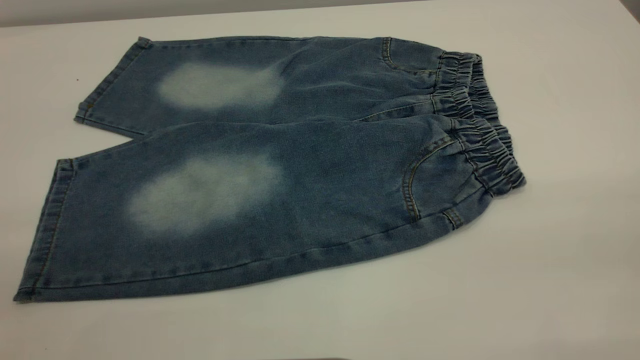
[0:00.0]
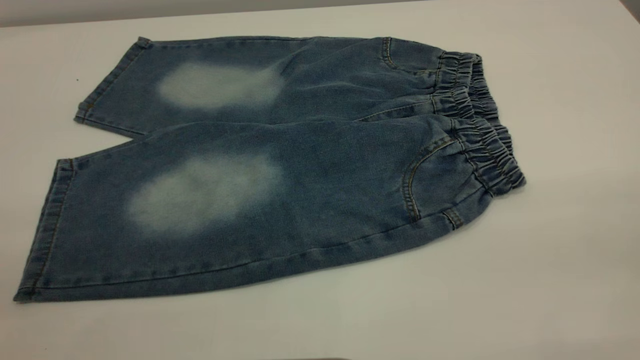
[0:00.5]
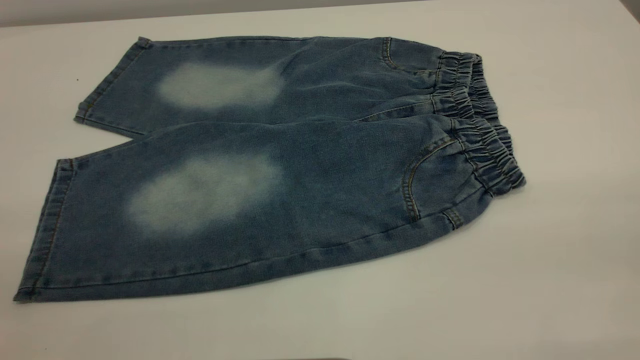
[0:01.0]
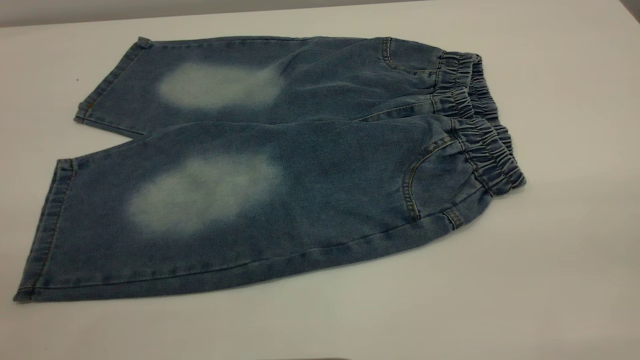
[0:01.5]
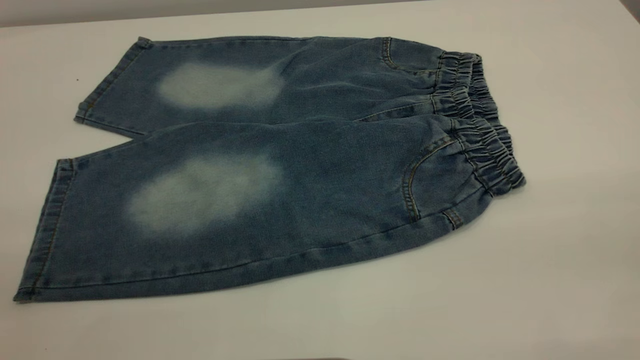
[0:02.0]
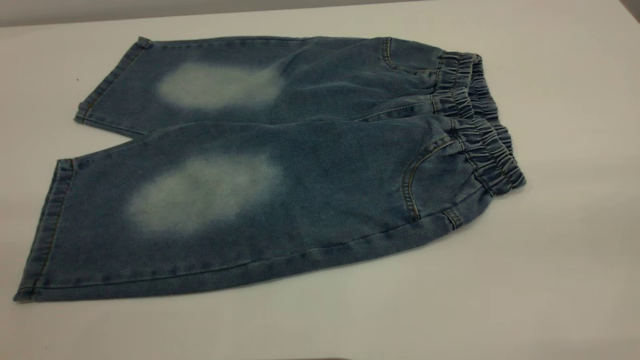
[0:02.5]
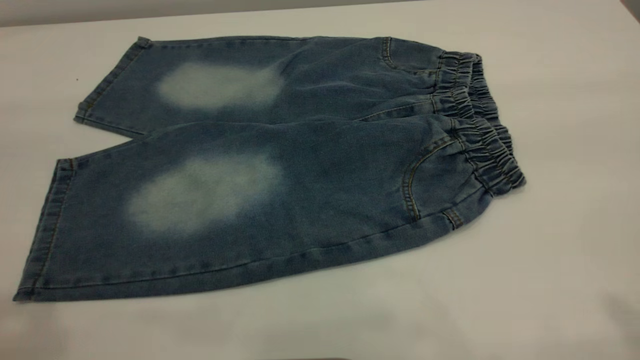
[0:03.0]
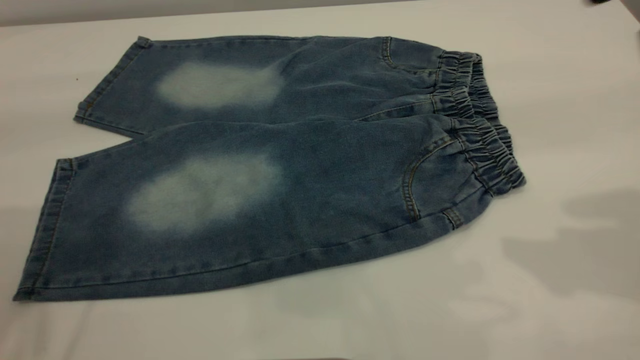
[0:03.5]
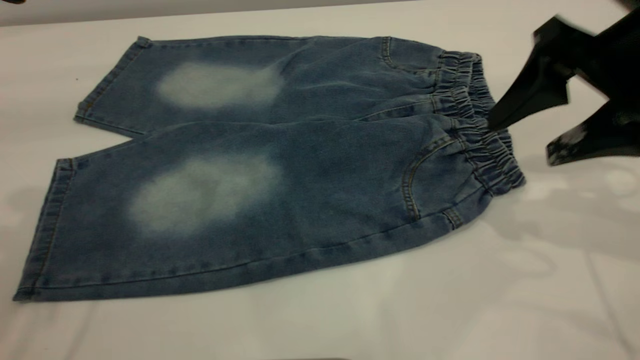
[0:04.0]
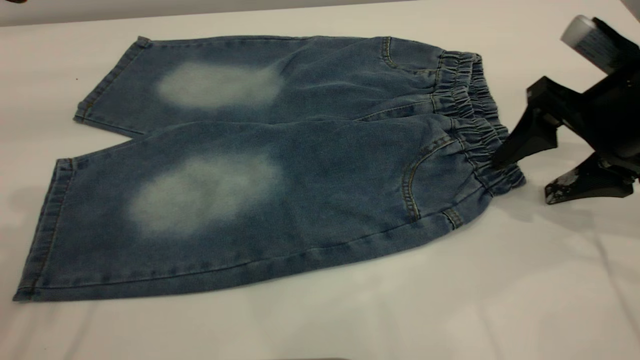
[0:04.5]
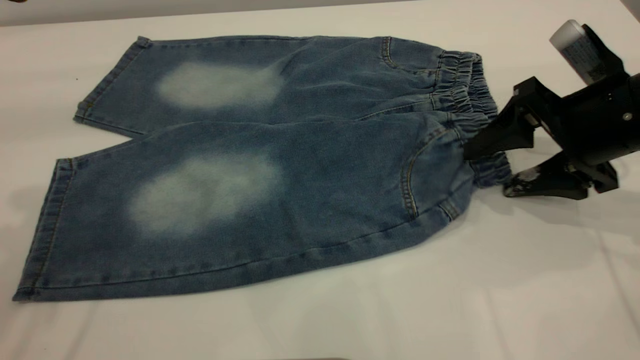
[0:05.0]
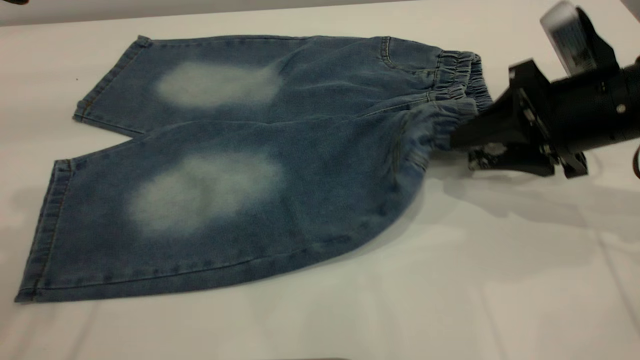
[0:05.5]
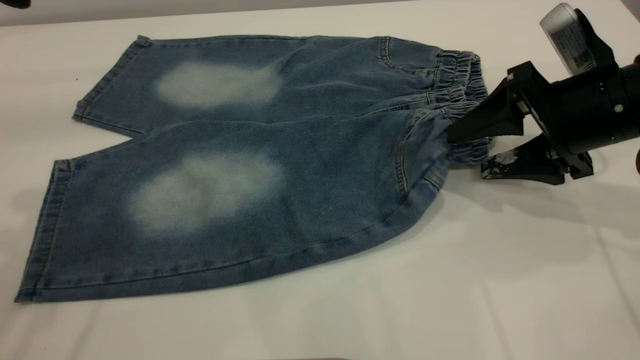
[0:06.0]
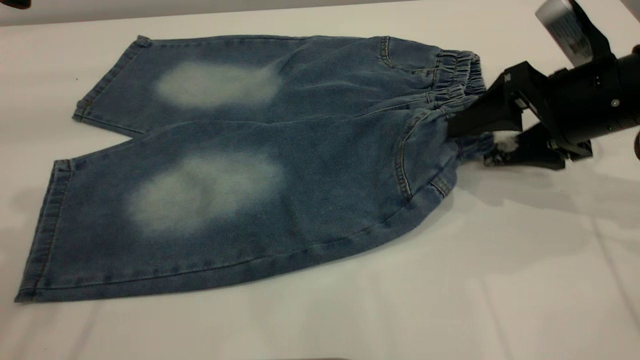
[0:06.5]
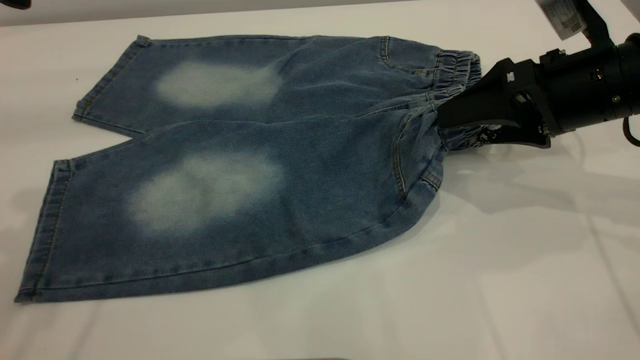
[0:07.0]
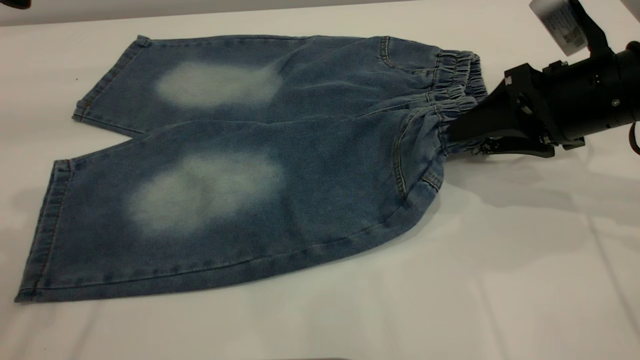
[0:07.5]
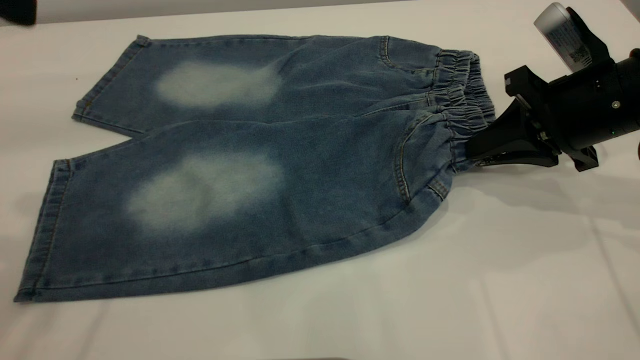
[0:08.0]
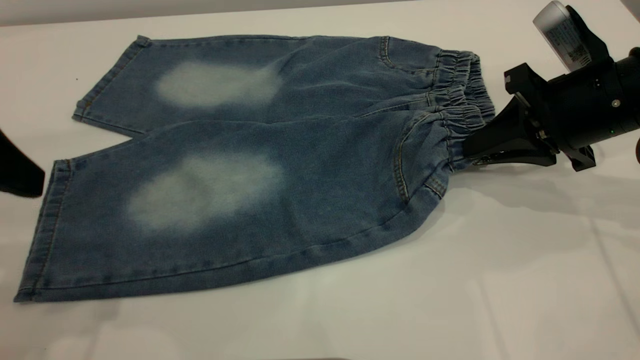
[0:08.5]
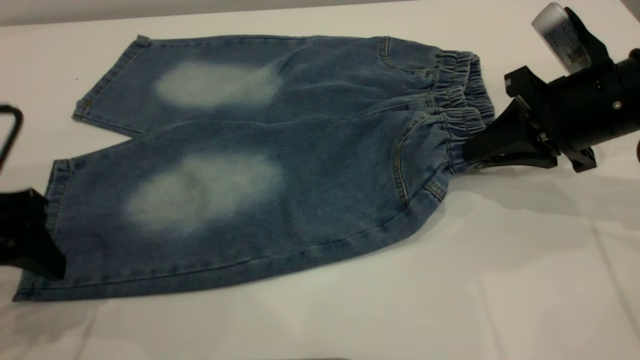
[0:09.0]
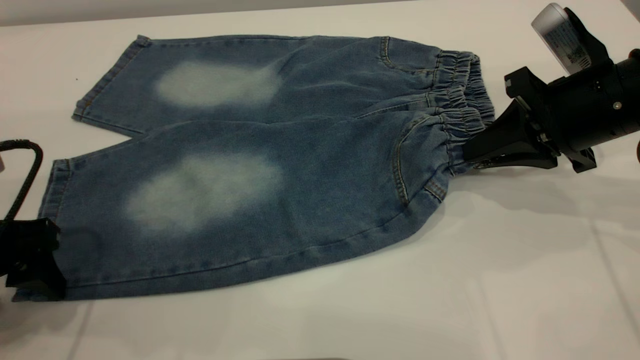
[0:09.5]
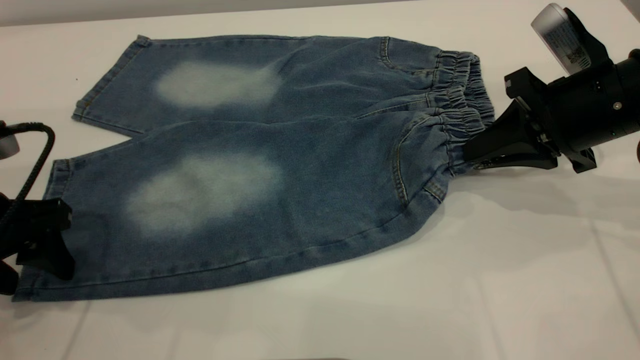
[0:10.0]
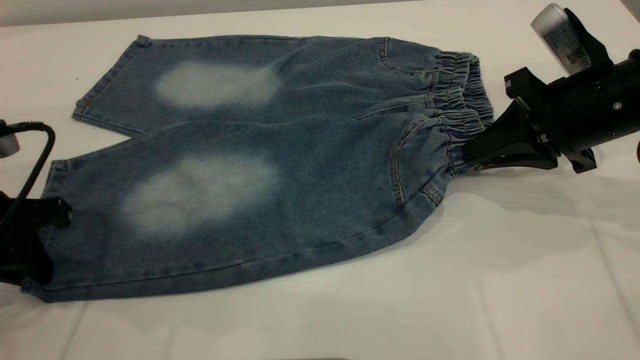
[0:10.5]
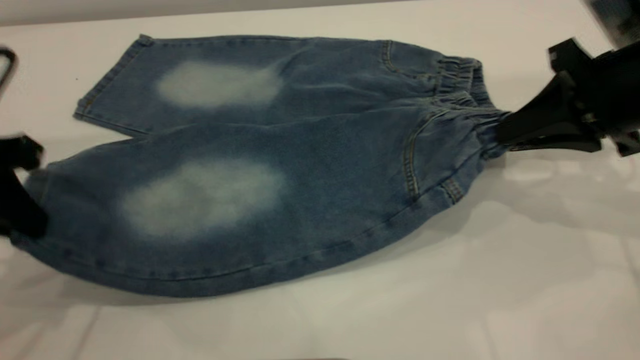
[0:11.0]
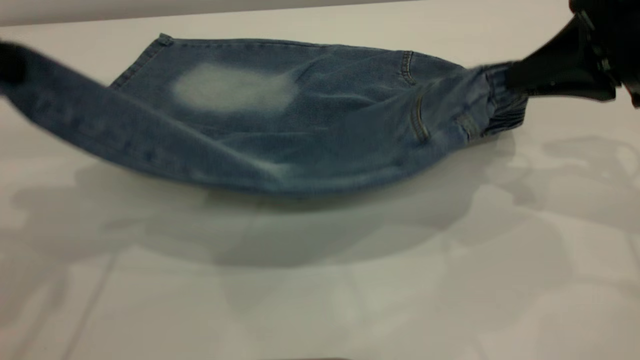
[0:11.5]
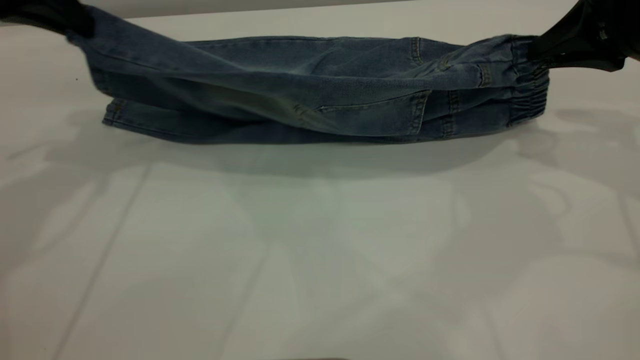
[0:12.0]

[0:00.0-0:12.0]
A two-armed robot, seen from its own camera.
0:00.0 to 0:02.0: Both grippers stay about where they are.
0:02.0 to 0:04.0: The right gripper is displaced forward and downward by roughly 30 cm.
0:04.0 to 0:06.0: The right gripper travels downward by roughly 10 cm, and closes, then opens again.
0:06.0 to 0:08.0: The right gripper closes.
0:08.0 to 0:10.0: The left gripper is displaced downward by about 20 cm.
0:10.0 to 0:12.0: The right gripper heads upward, covering about 5 cm. The left gripper is displaced forward and upward by roughly 20 cm, and closes up.

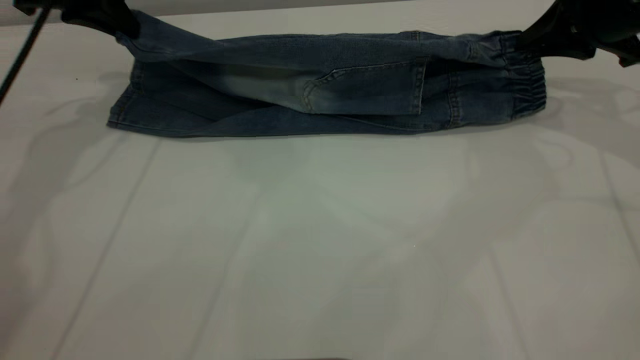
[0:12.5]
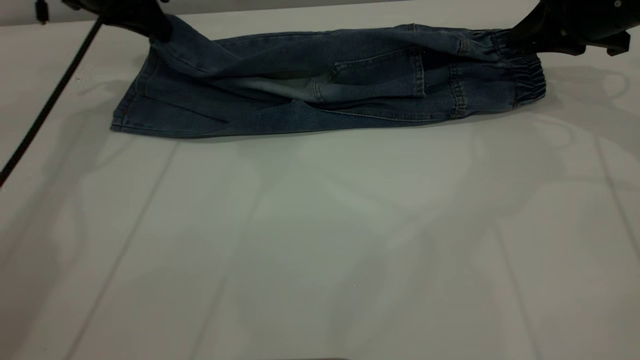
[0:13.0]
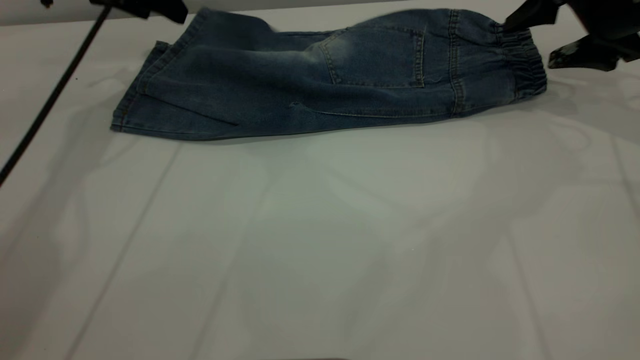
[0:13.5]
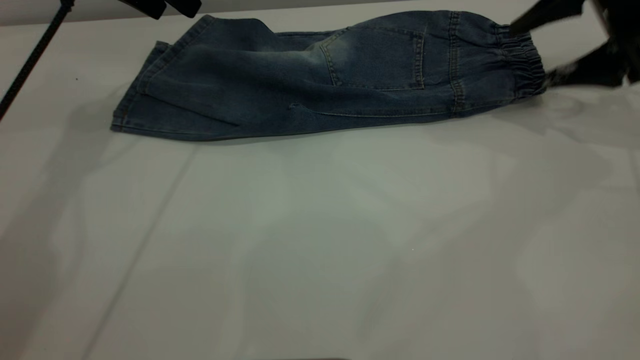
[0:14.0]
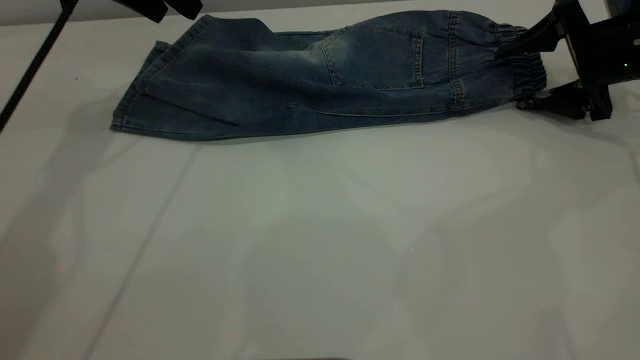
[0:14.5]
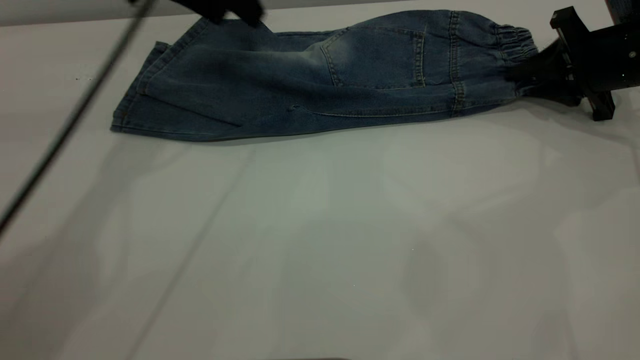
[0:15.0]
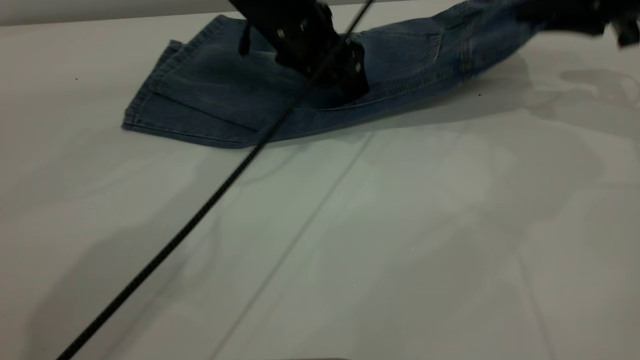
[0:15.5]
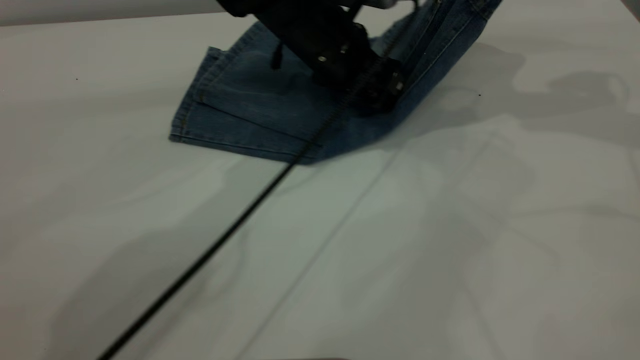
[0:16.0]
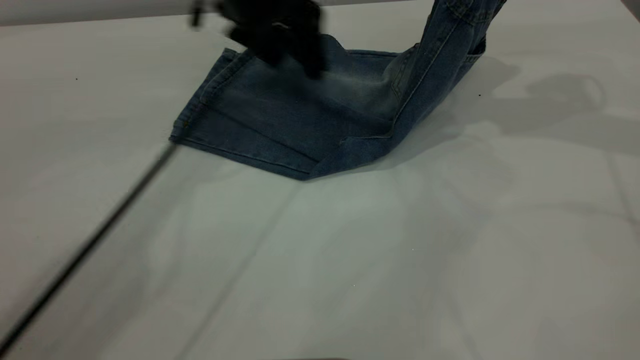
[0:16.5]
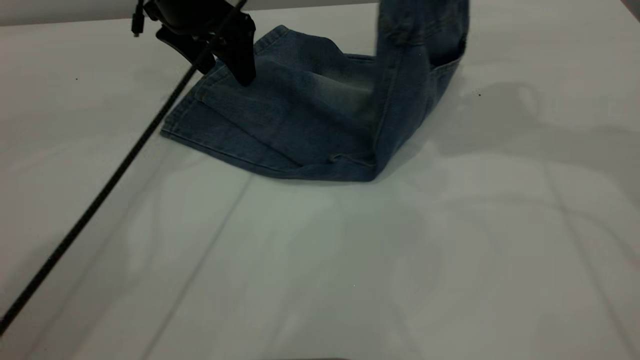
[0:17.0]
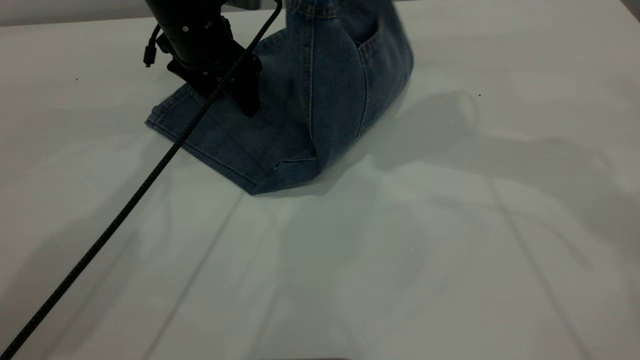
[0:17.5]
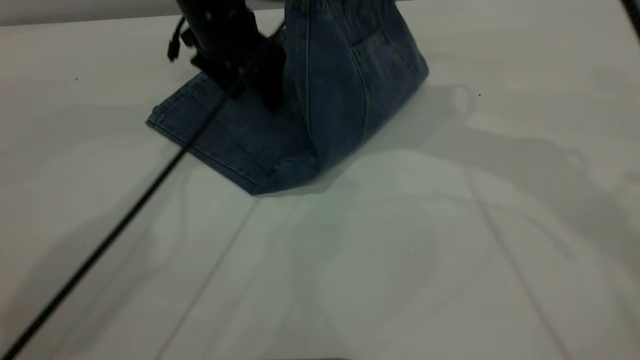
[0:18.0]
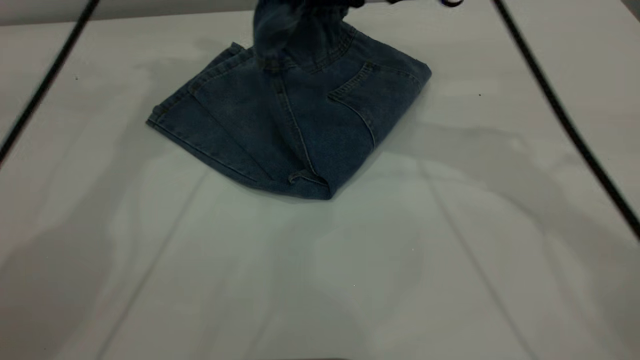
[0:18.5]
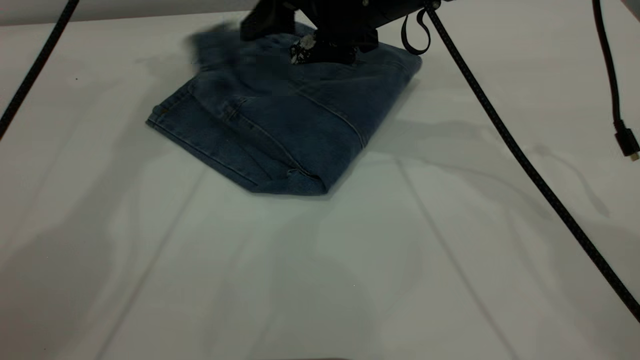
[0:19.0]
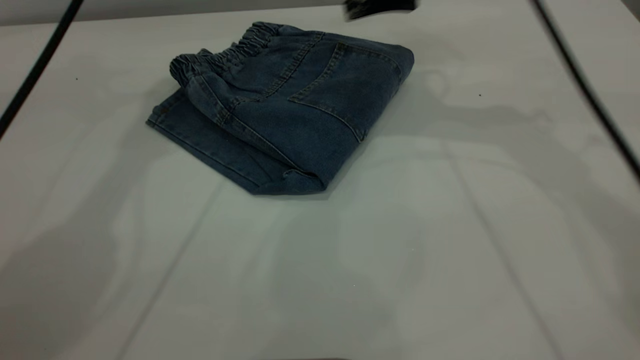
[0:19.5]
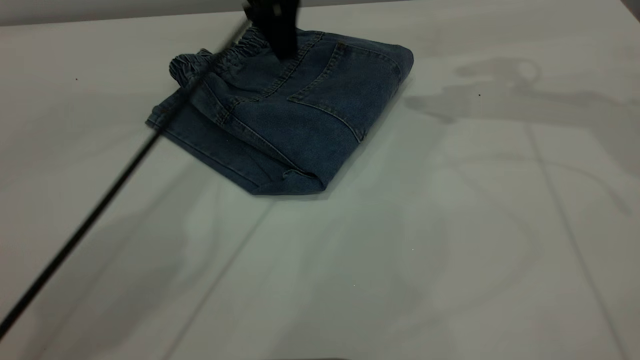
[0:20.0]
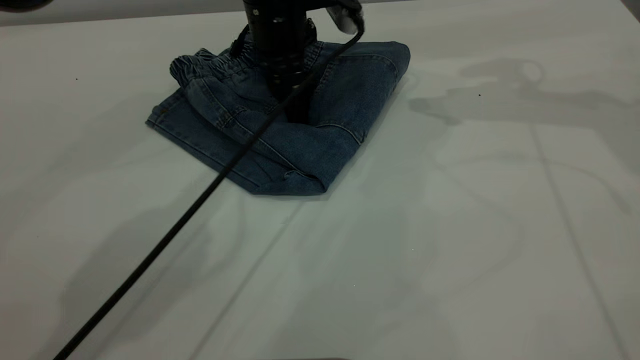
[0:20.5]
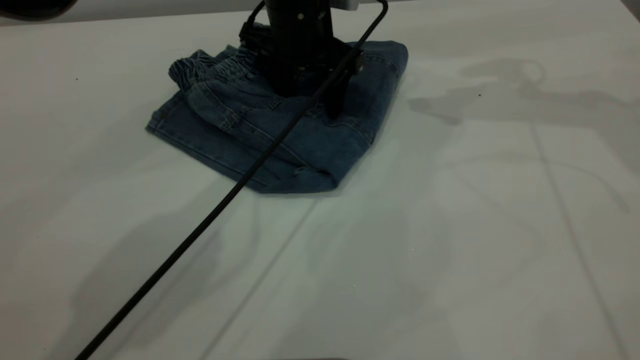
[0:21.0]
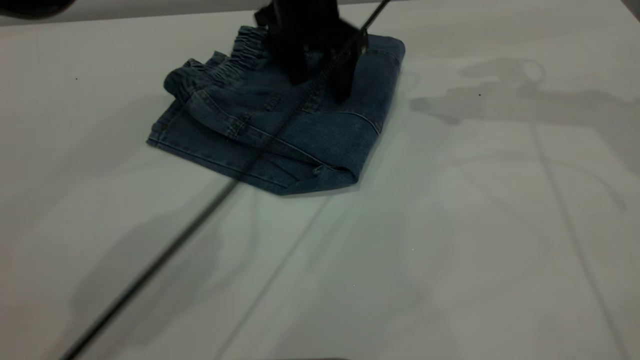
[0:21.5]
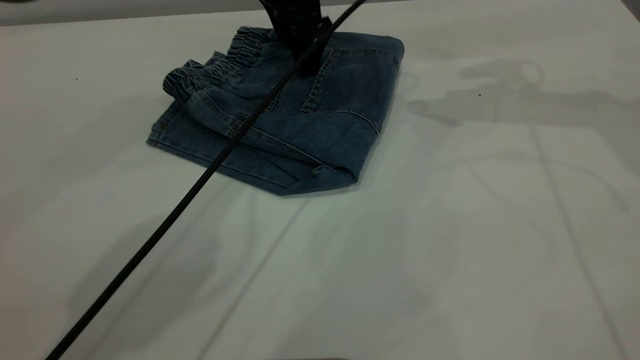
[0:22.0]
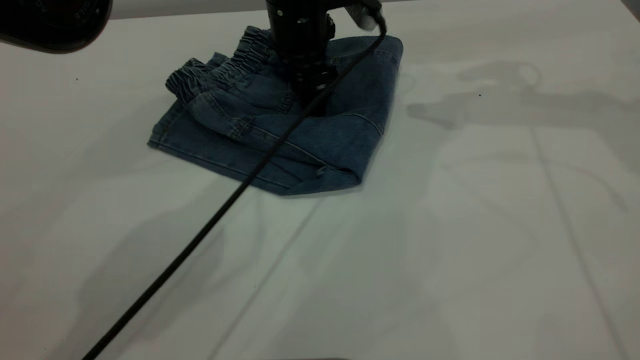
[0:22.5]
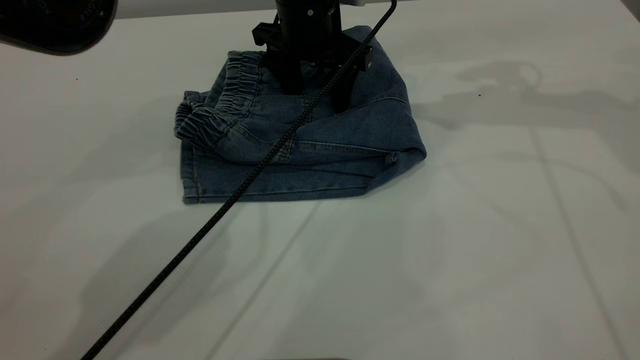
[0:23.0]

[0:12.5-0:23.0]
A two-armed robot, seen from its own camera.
Step, 0:14.0 to 0:19.0: Fold your pants from right to left.
0:12.5 to 0:14.5: The left gripper shifts by some 5 cm, and opens its fingers. Meanwhile the right gripper is displaced downward by approximately 5 cm, and opens up.
0:14.5 to 0:16.5: The right gripper travels upward by some 20 cm, and closes. Meanwhile the left gripper heads to the right, covering some 15 cm.
0:16.5 to 0:19.0: The right gripper travels to the left and downward by roughly 25 cm, and opens its fingers; the left gripper travels upward, to the left and forward by about 15 cm.
0:19.0 to 0:21.0: The left gripper shifts roughly 25 cm downward and to the right; the right gripper is displaced to the right and upward by roughly 20 cm.
